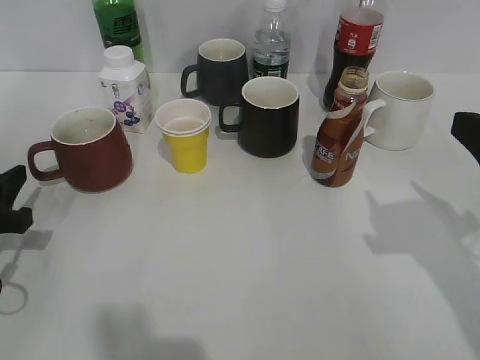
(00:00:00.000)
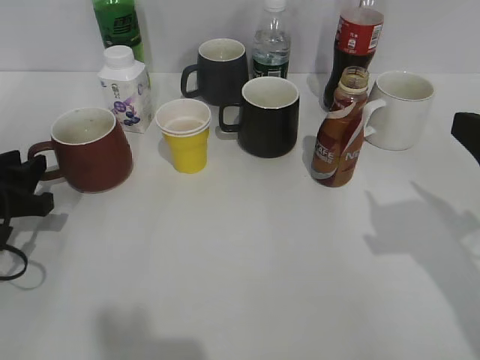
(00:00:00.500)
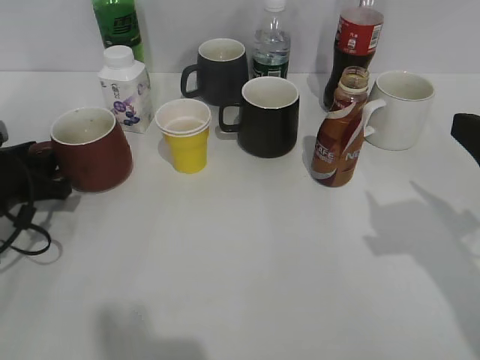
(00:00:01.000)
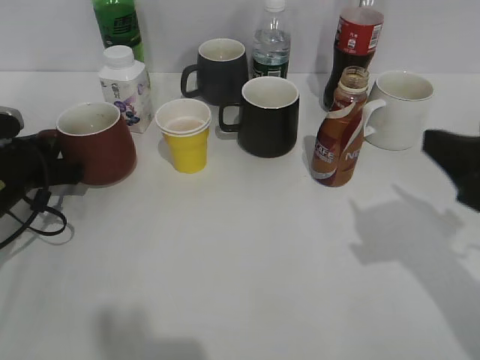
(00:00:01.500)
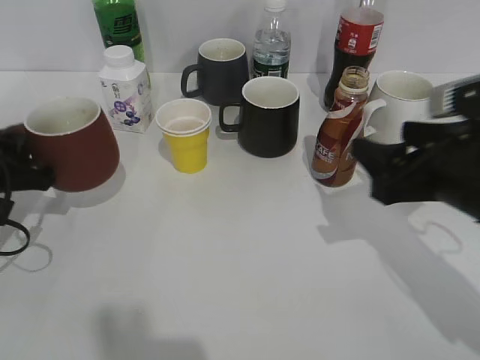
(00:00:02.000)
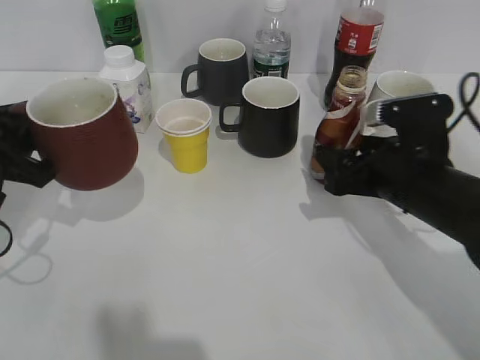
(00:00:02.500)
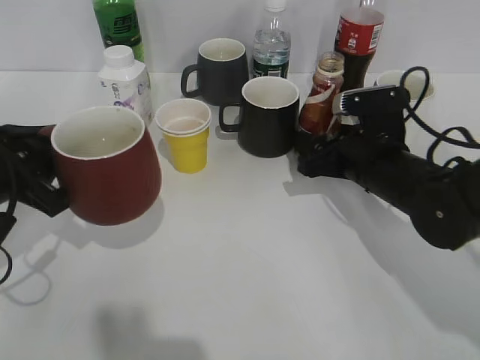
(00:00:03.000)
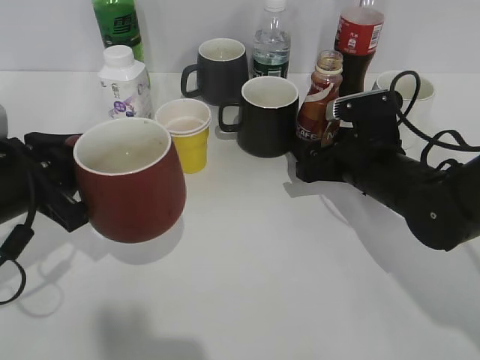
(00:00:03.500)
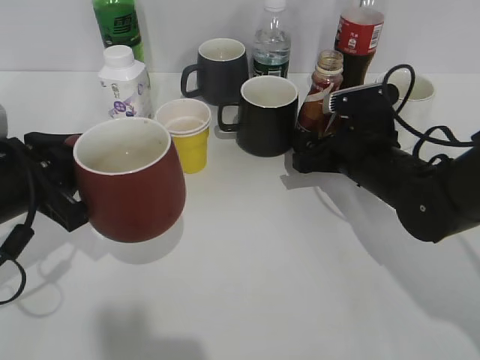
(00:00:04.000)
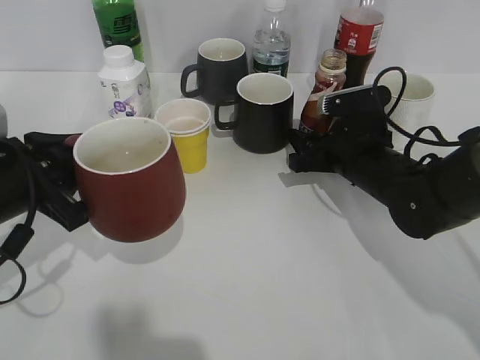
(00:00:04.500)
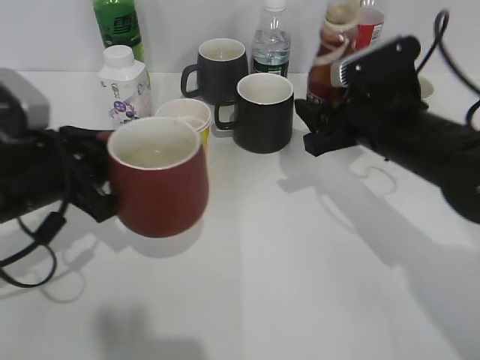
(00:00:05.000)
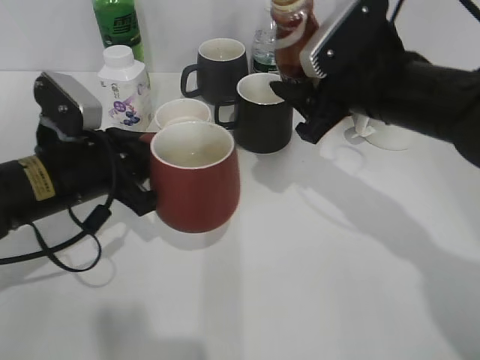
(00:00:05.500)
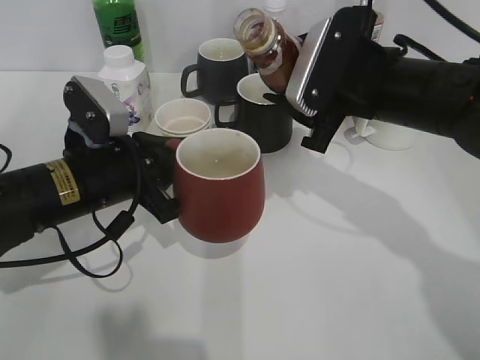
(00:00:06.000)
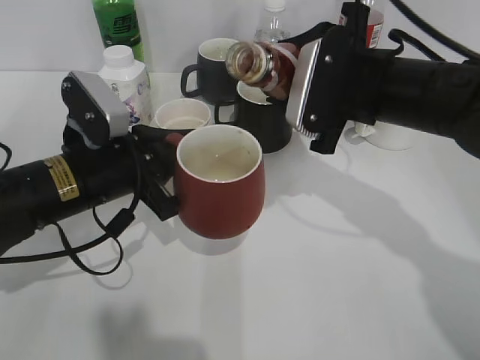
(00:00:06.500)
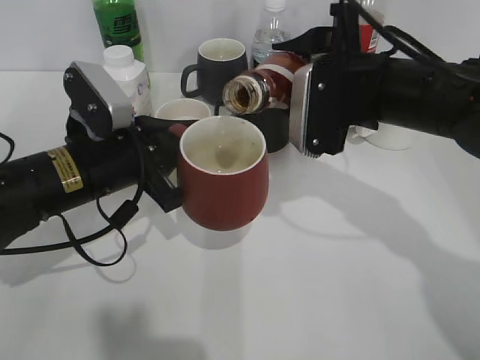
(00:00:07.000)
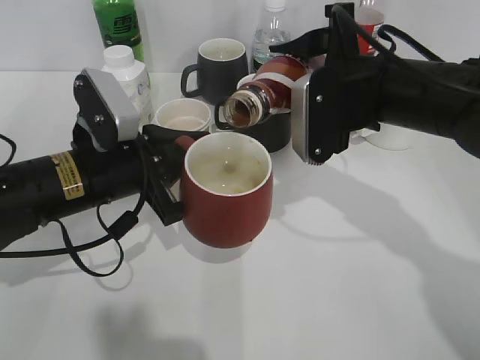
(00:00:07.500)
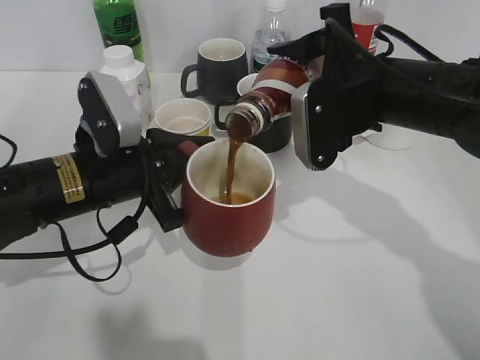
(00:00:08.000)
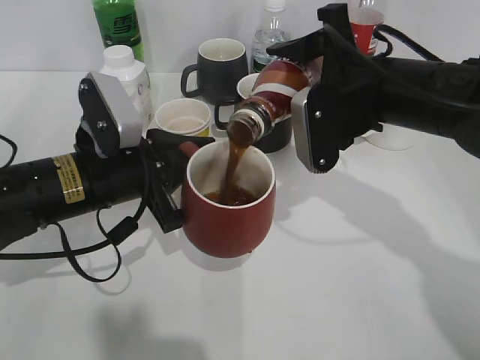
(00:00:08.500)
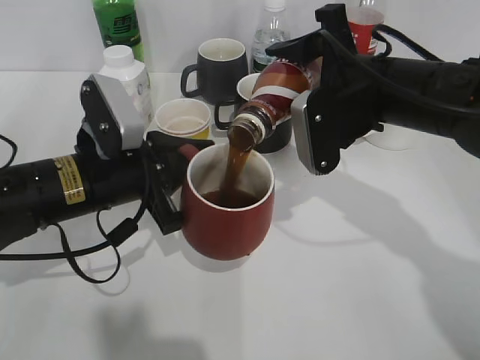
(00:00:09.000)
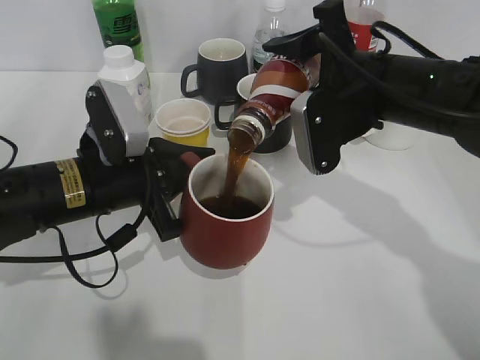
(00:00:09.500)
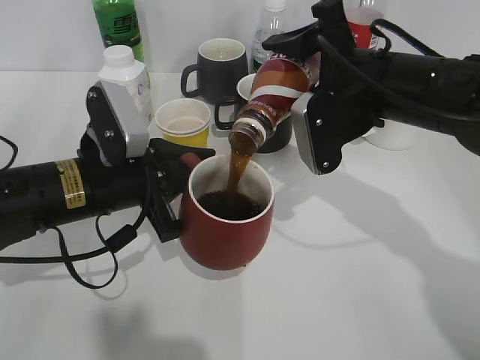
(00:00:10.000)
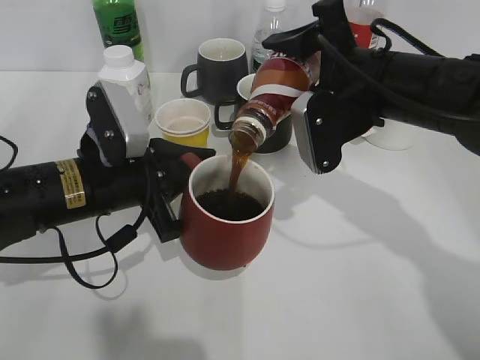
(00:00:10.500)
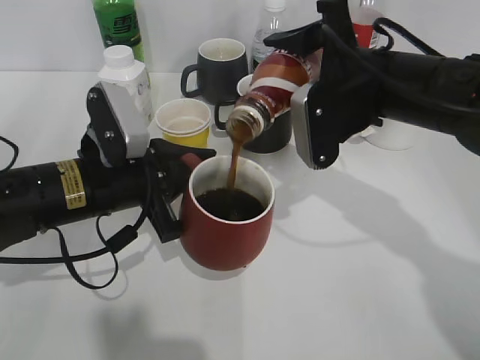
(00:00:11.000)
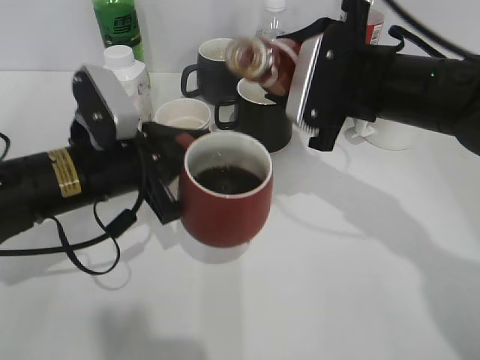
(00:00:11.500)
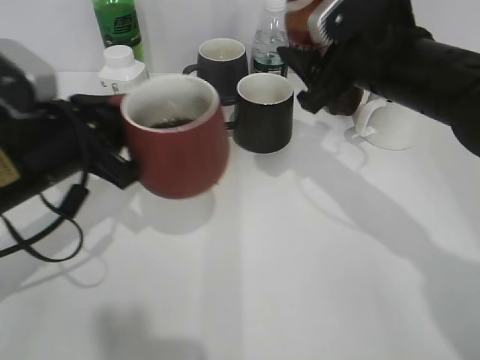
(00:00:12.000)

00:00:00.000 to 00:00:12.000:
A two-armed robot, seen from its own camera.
Step, 00:00:02.000 to 00:00:04.000: Grasp the bottle with coffee with right gripper.
Step, 00:00:04.500 to 00:00:11.000: Pour the coffee from bottle to cup with right gripper.
00:00:00.000 to 00:00:02.000: The left gripper closes its fingers. Meanwhile the right gripper shifts approximately 5 cm downward and to the left.
00:00:02.000 to 00:00:04.000: The right gripper heads forward, downward and to the left, covering roughly 15 cm, and opens its fingers; the left gripper goes some 5 cm to the right.
00:00:04.000 to 00:00:06.000: The right gripper moves upward, roughly 10 cm, and closes; the left gripper moves to the right, approximately 5 cm.
00:00:08.000 to 00:00:10.000: The grippers stay close to where they were, moving slightly.
00:00:10.000 to 00:00:12.000: The left gripper ends up about 5 cm from where it was.

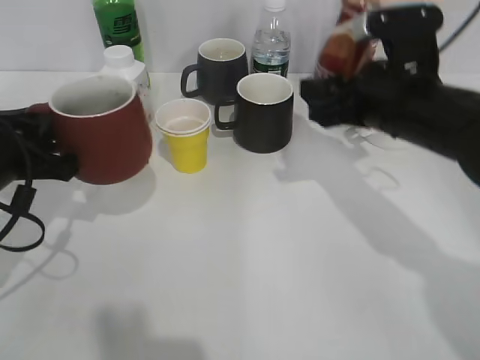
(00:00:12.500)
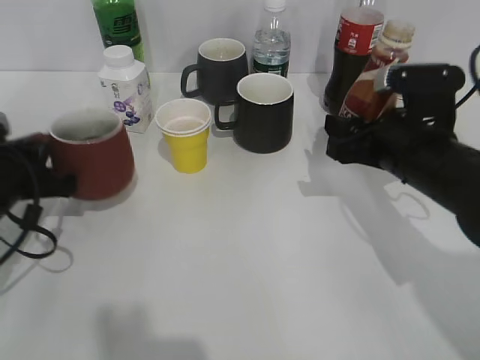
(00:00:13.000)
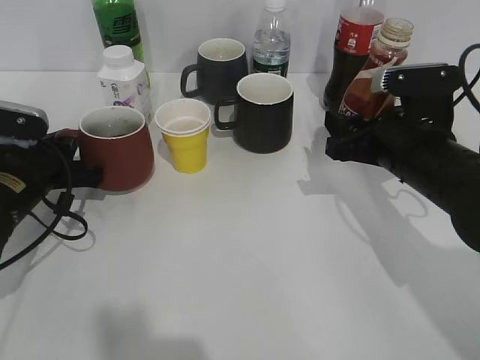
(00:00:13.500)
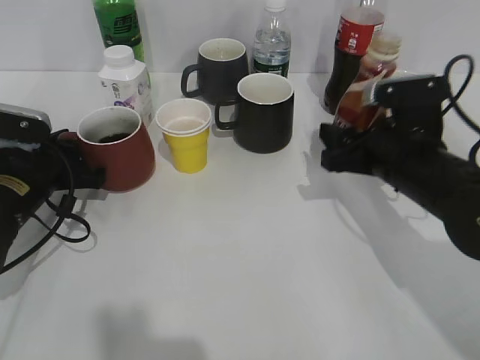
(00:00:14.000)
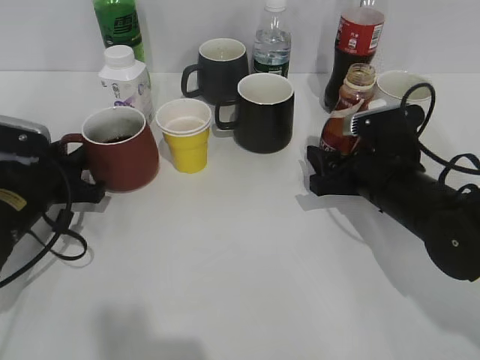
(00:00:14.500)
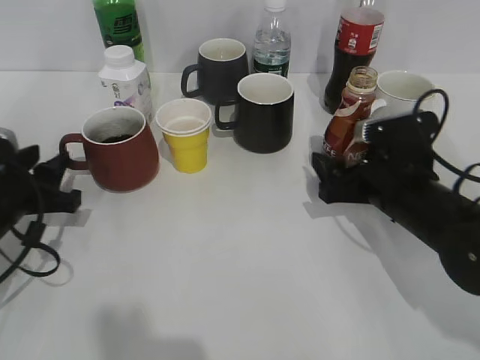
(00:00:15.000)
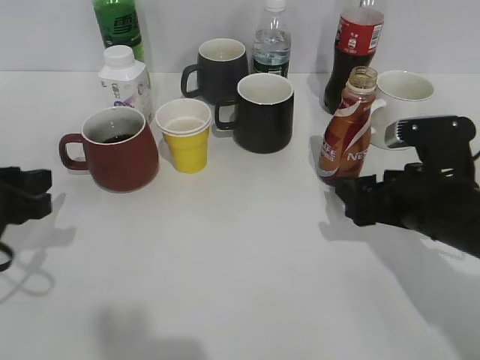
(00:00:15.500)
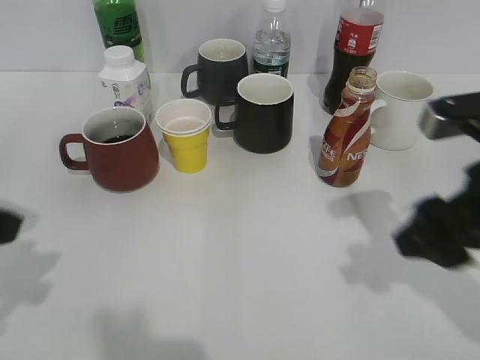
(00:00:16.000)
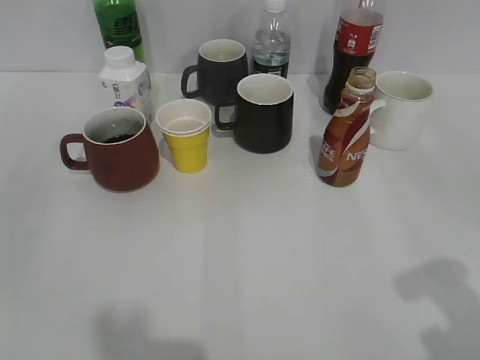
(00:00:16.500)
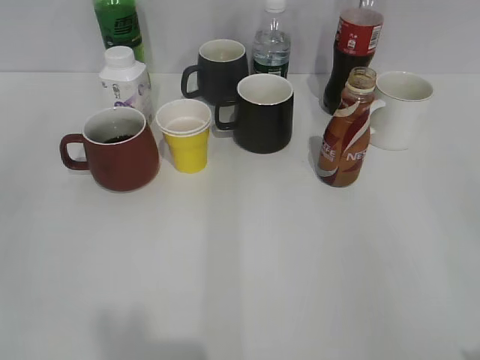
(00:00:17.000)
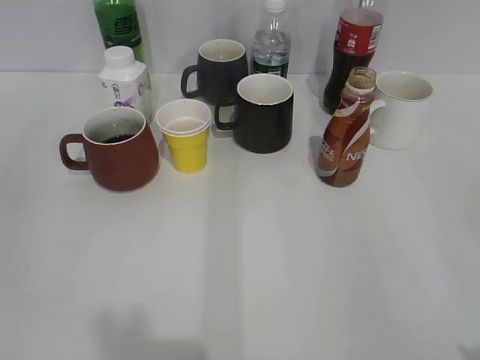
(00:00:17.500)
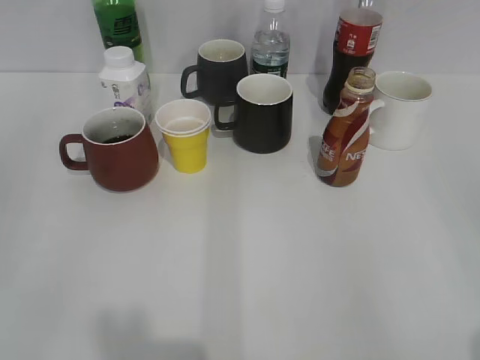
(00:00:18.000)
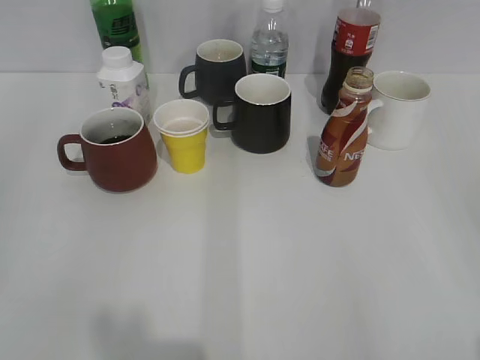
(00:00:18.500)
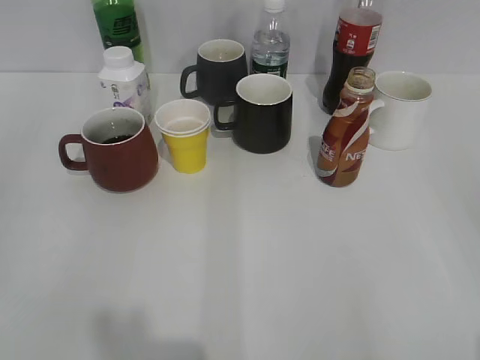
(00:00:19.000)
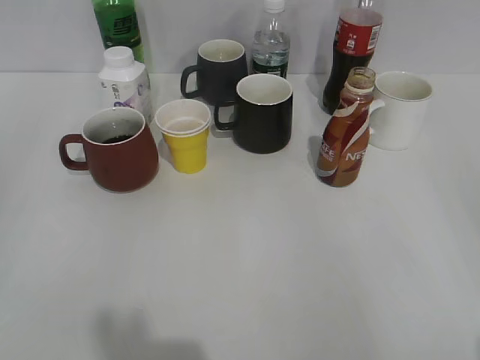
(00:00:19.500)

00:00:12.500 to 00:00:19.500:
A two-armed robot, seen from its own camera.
Step, 00:00:12.500 to 00:00:14.500: Place the red cup on the table with left gripper.
00:00:12.500 to 00:00:14.500: The two grippers go approximately 10 cm downward. The left gripper opens its fingers.
00:00:14.500 to 00:00:16.000: Both grippers travel together upward and backward, about 15 cm. The right gripper opens and closes again.
00:00:16.000 to 00:00:17.500: The right gripper travels backward and to the right by some 20 cm. The left gripper is displaced backward and to the left by approximately 15 cm.
